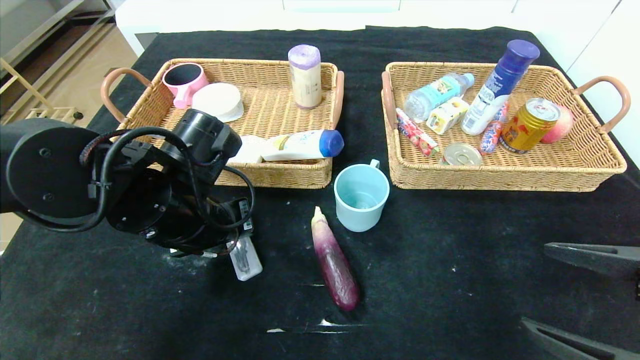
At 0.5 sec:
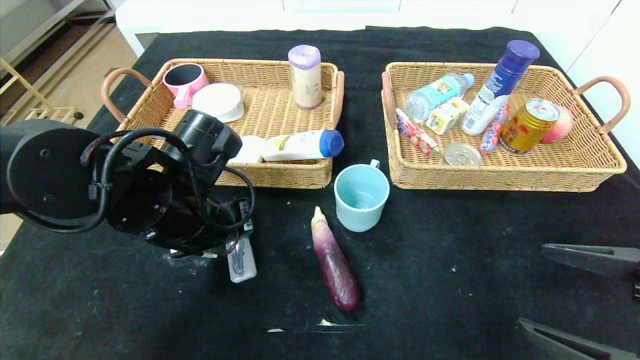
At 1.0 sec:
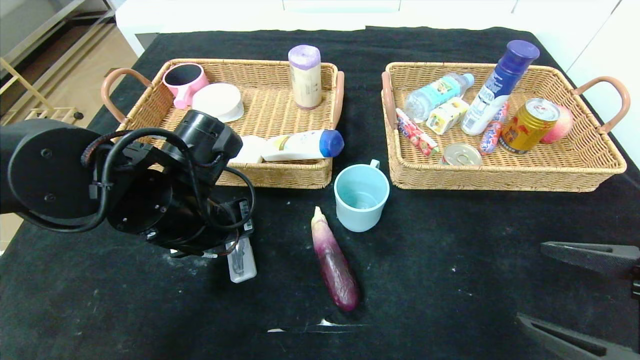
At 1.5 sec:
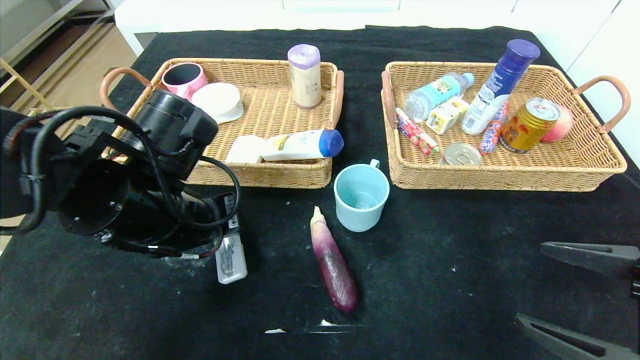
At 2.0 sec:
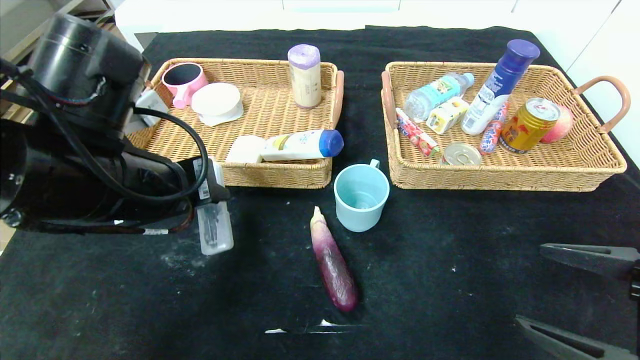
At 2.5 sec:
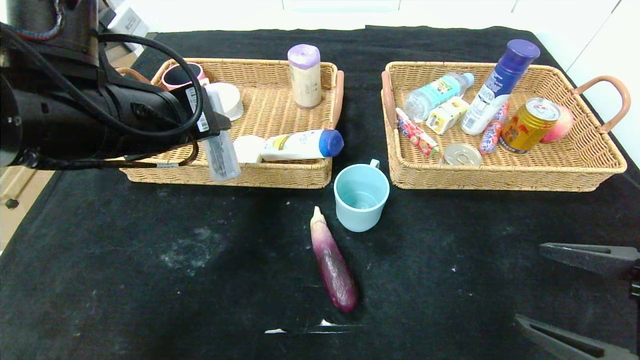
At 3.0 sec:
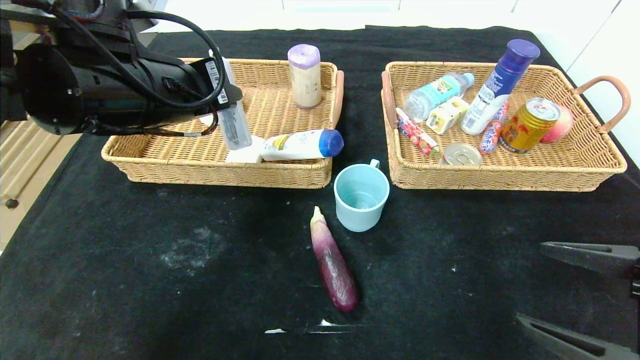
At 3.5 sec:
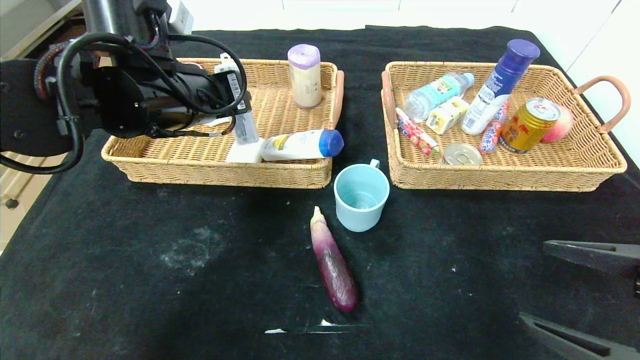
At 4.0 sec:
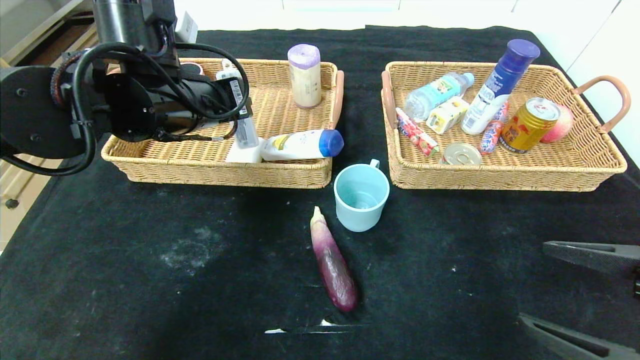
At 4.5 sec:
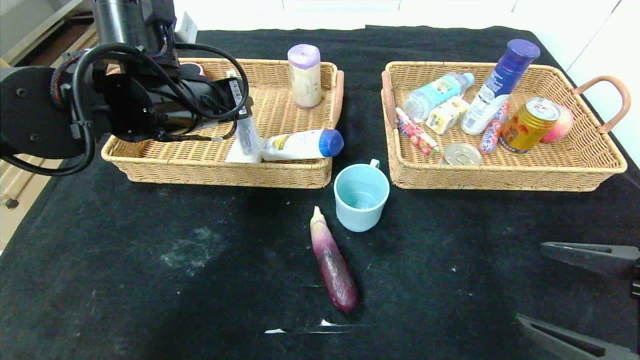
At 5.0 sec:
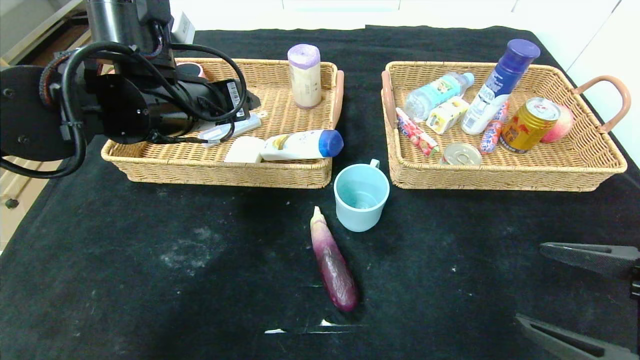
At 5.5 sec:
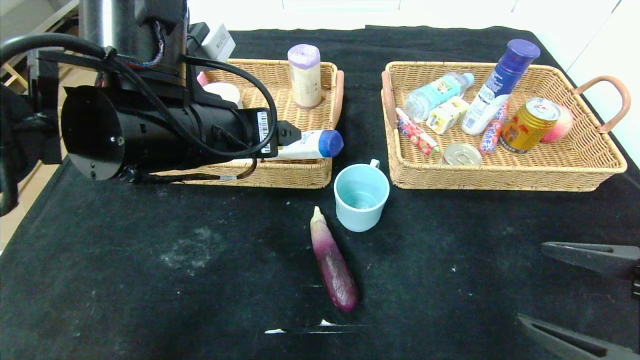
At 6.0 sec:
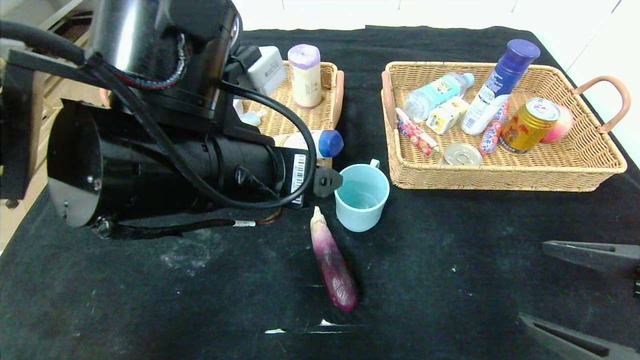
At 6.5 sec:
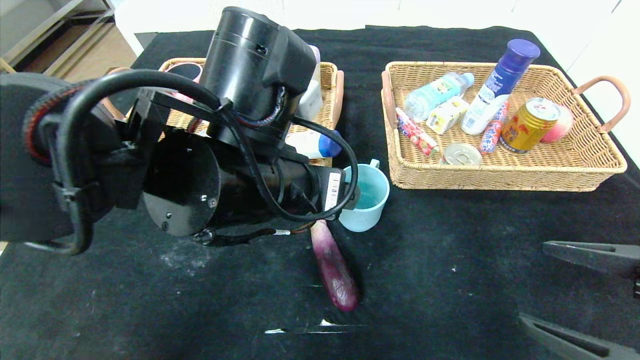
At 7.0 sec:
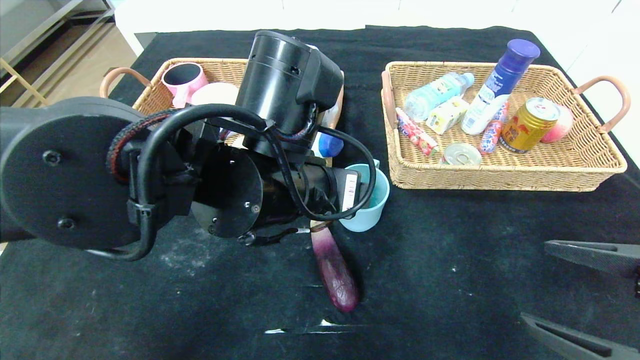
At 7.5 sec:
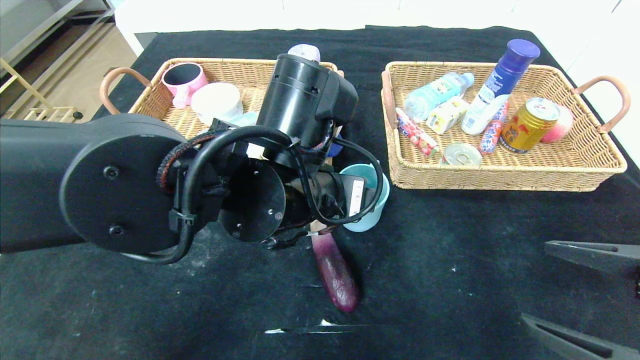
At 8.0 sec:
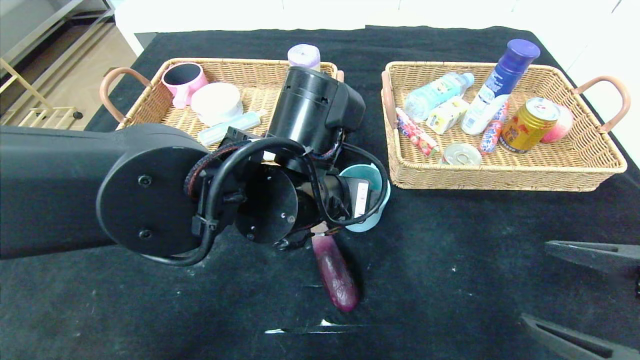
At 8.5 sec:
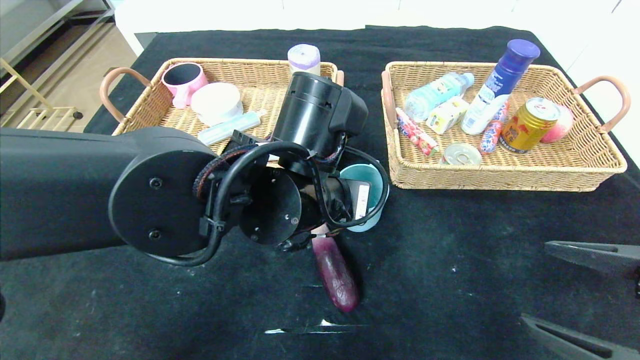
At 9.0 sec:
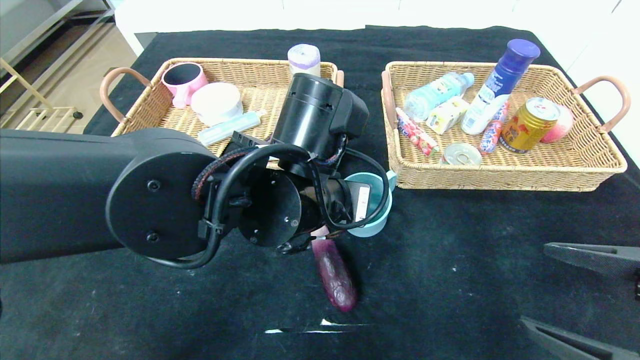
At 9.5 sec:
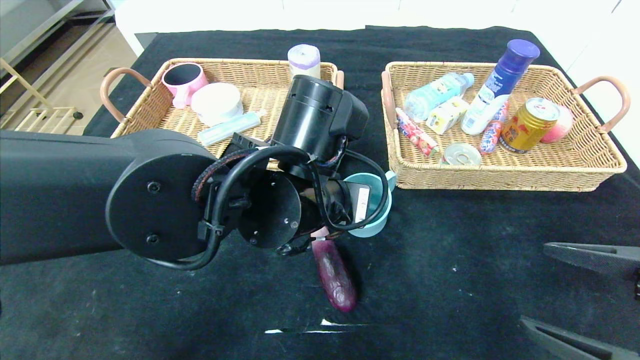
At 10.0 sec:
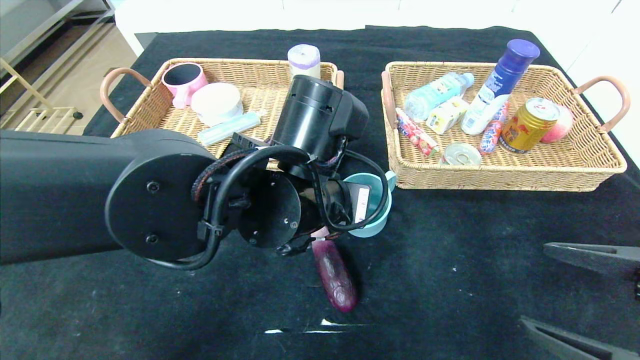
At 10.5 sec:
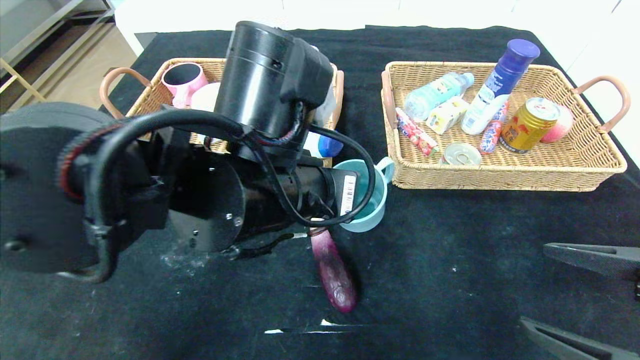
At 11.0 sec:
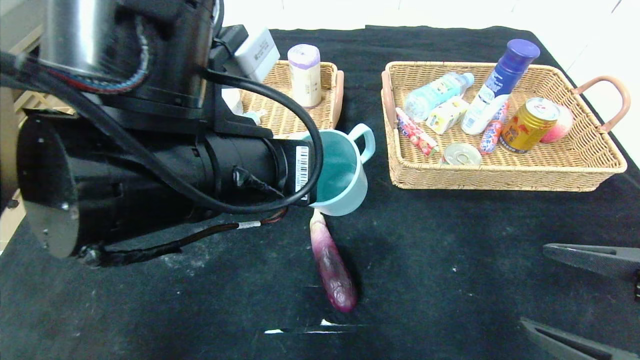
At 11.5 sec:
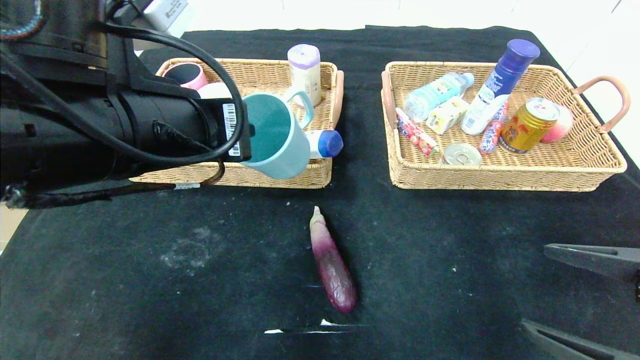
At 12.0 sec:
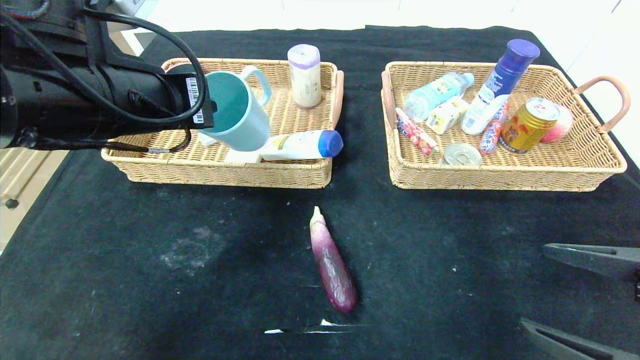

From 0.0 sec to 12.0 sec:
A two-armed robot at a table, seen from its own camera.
Step, from 0.0 sec to 6.0 sec: Pick up the compass and put it in the left basket.
From 0.0 sec to 2.0 sec: The left gripper heads upward and backward, covering about 10 cm.
From 2.0 sec to 4.0 sec: The left gripper moves forward, approximately 10 cm.
From 4.0 sec to 6.0 sec: The left gripper moves backward and to the right, about 15 cm, and opens its fingers.
From 6.0 sec to 8.0 sec: The left gripper shifts approximately 5 cm to the right.
From 8.0 sec to 10.0 sec: The left gripper closes up.
From 10.0 sec to 12.0 sec: The left gripper is displaced to the left and upward by roughly 20 cm.

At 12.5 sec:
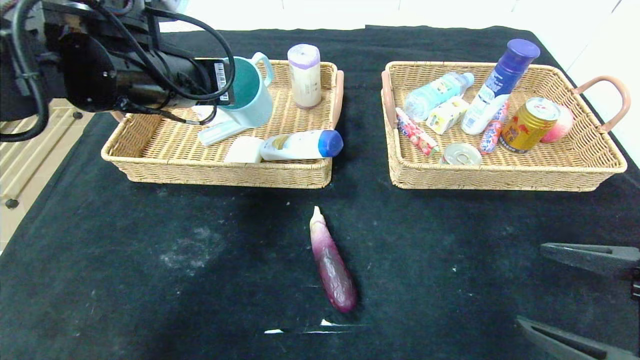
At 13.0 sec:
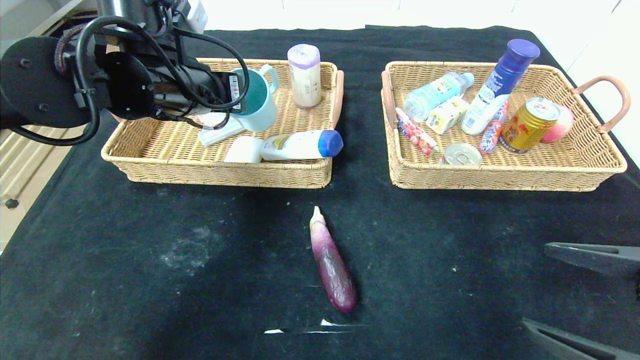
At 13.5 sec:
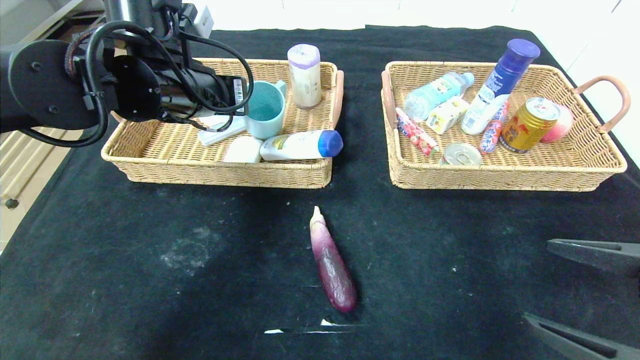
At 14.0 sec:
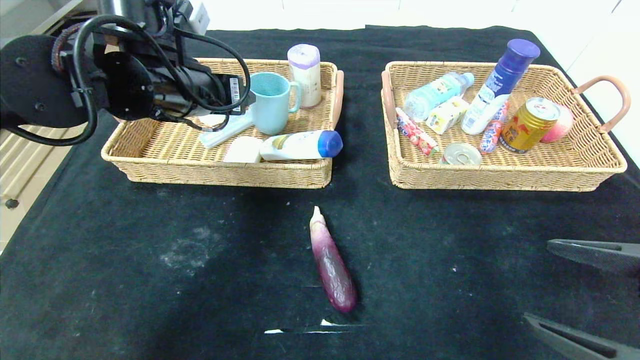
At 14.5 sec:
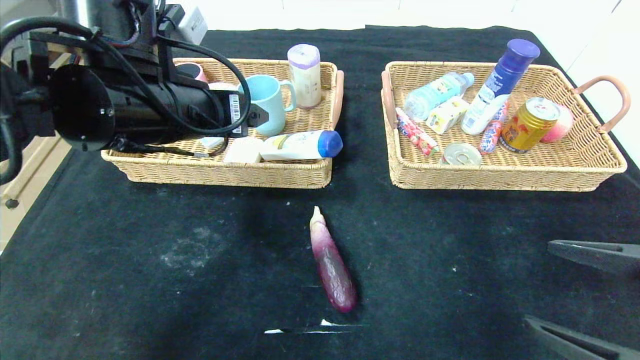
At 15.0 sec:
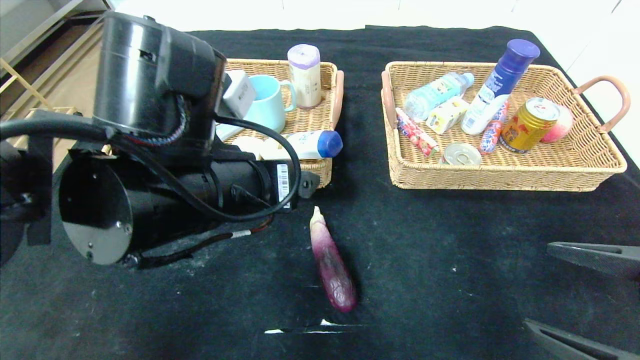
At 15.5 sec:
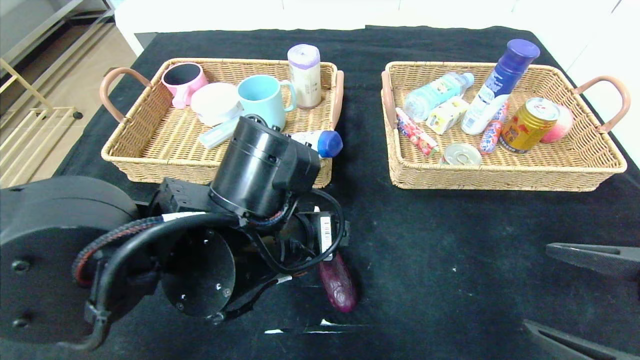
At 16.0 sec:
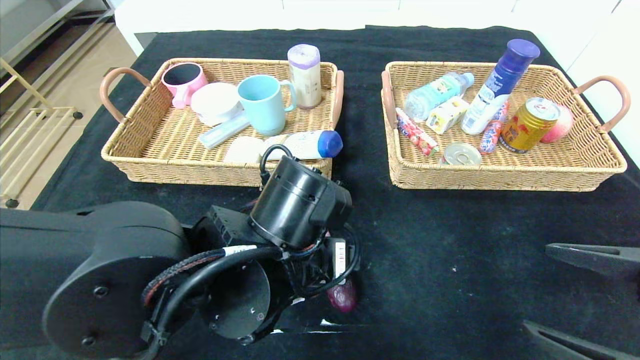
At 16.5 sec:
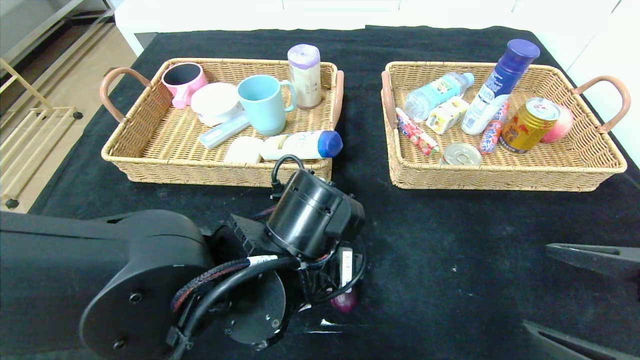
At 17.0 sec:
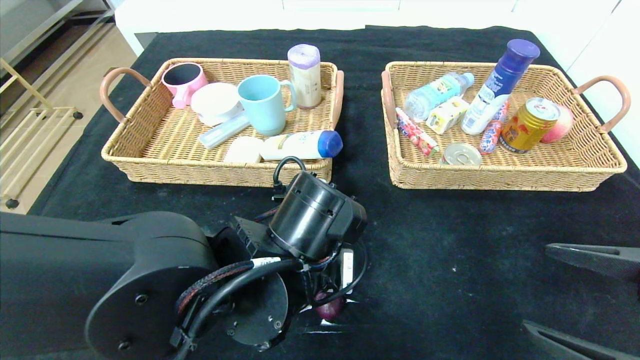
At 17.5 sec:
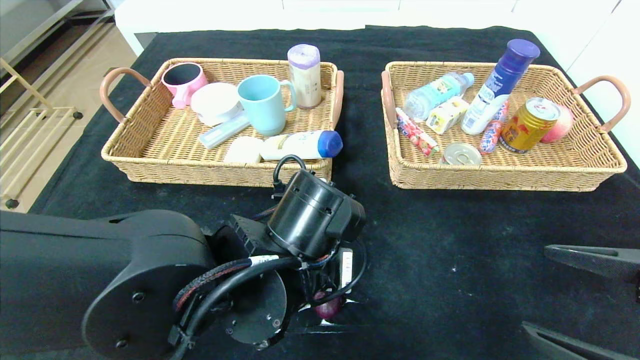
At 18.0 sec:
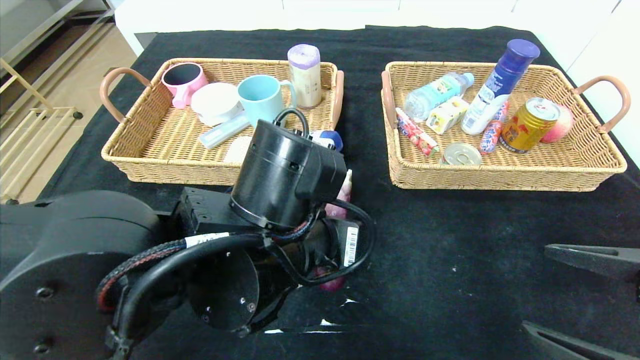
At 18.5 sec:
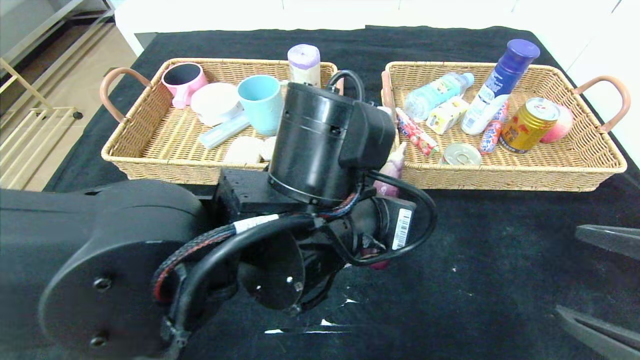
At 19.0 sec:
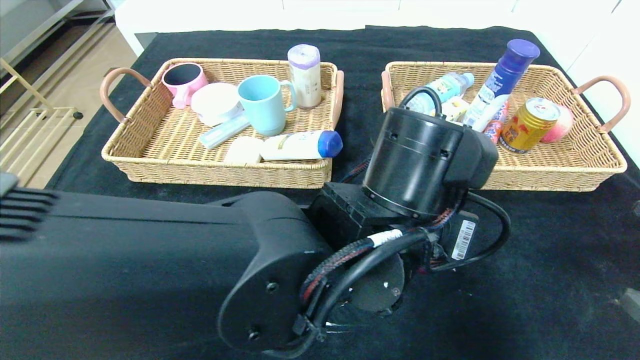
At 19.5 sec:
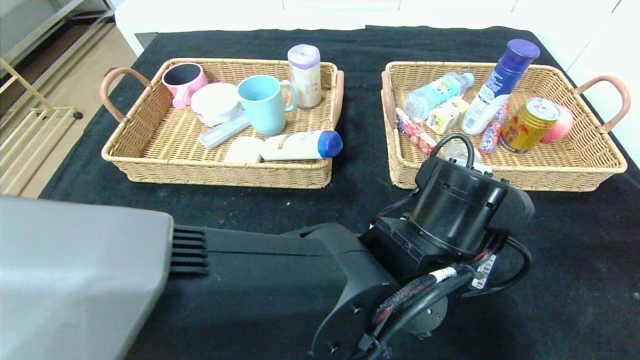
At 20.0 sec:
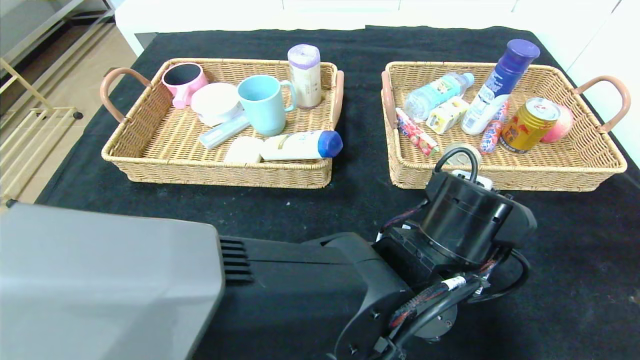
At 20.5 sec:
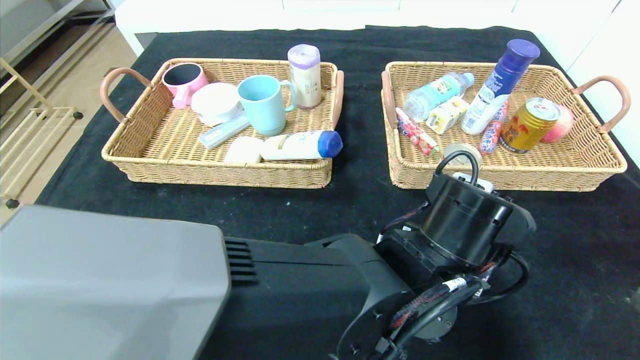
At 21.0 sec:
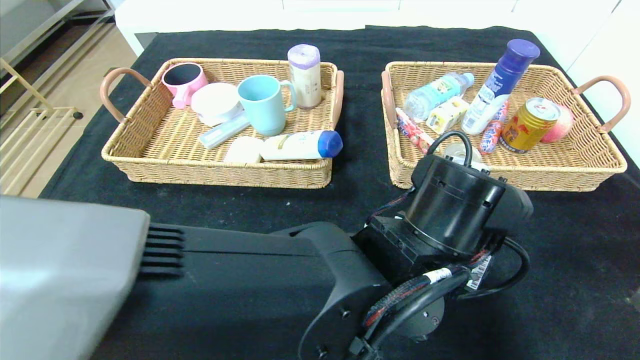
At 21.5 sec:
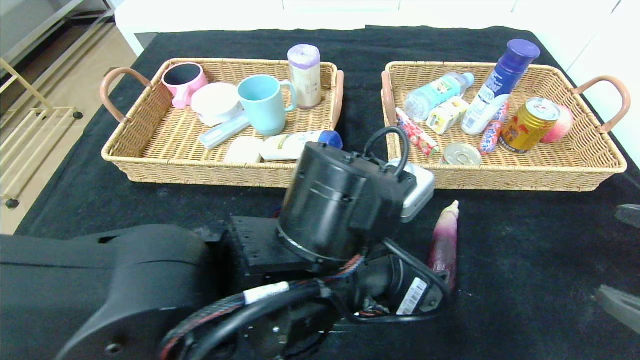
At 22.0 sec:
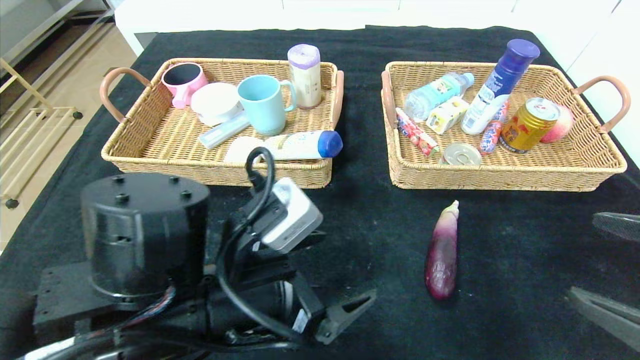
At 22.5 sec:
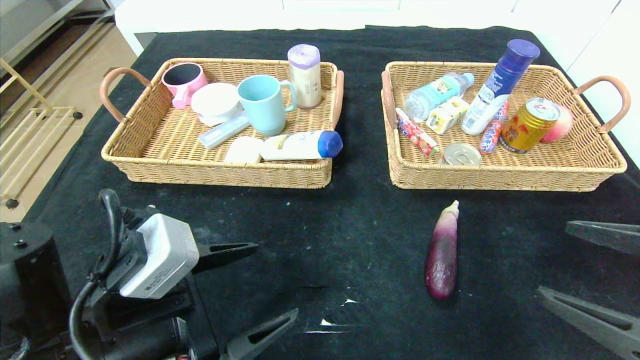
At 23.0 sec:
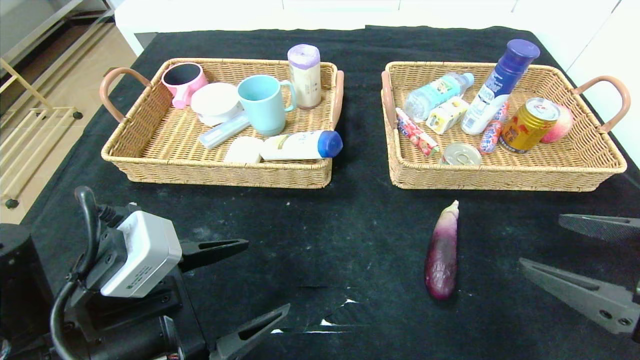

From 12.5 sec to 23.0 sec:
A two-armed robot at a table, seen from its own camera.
Step, from 12.5 sec to 15.0 sec: Pick up the blue bowl and put it in the left basket.
Step, from 15.5 sec to 21.5 sec: Place the eggplant in the center of the table.
From 12.5 sec to 14.5 sec: The left gripper opens up.
From 14.5 sec to 16.5 sec: The left gripper shifts roughly 20 cm downward, to the right and backward.
From 16.5 sec to 19.0 sec: The right gripper ends up about 5 cm from where it was. Meanwhile the left gripper is displaced to the right by roughly 10 cm, and closes.
From 19.0 sec to 21.0 sec: The left gripper opens up.
From 21.0 sec to 23.0 sec: The left gripper travels to the left by roughly 25 cm; the right gripper heads forward, covering approximately 5 cm.
